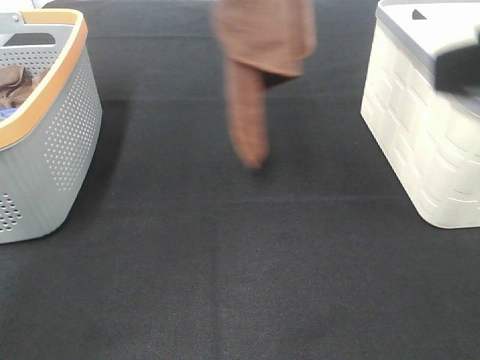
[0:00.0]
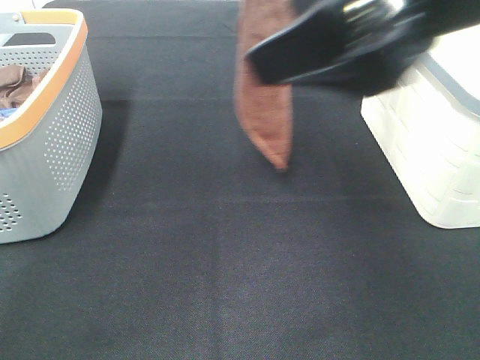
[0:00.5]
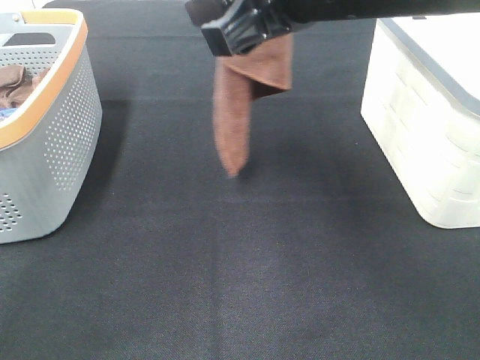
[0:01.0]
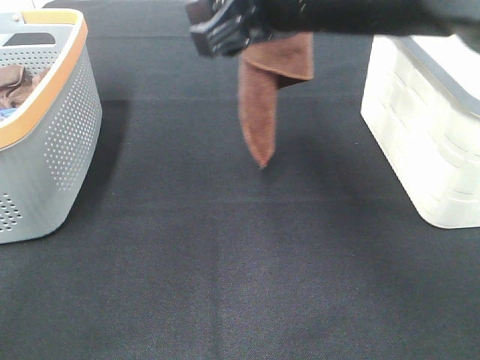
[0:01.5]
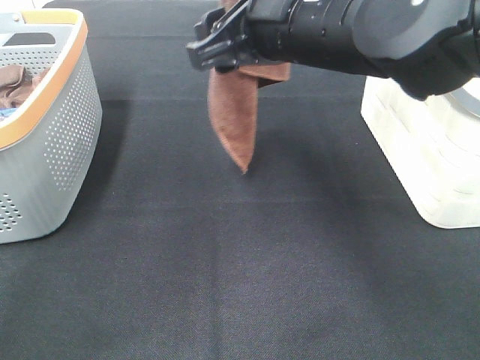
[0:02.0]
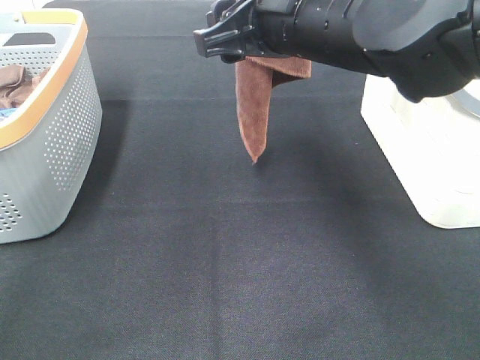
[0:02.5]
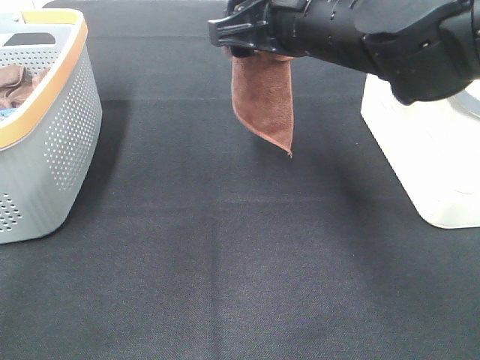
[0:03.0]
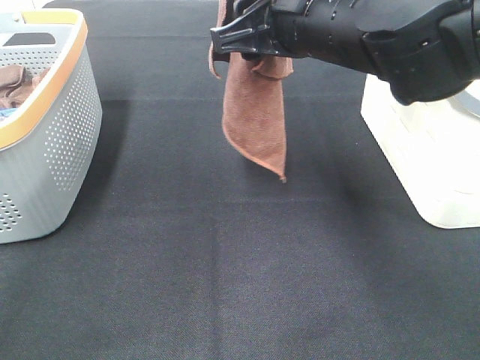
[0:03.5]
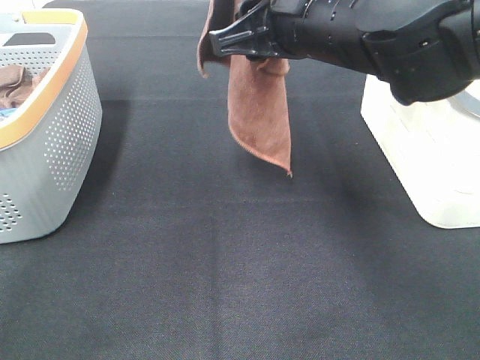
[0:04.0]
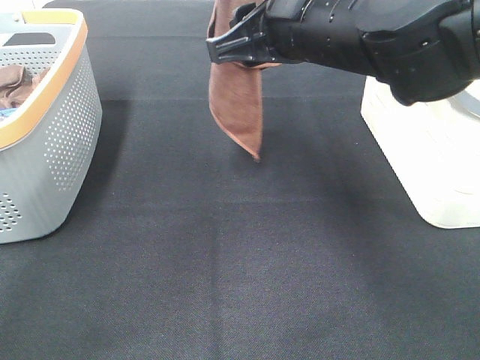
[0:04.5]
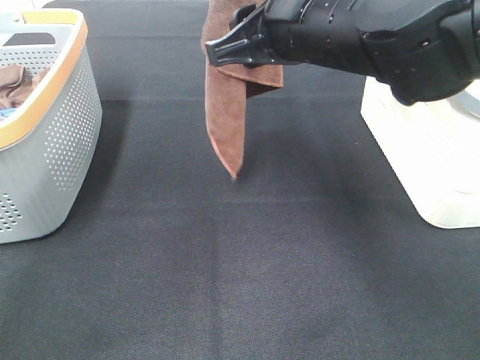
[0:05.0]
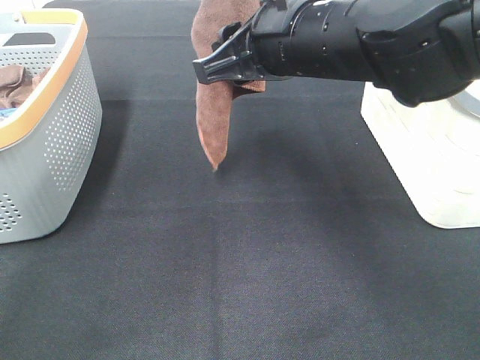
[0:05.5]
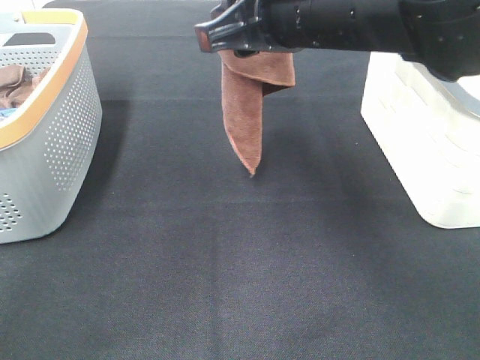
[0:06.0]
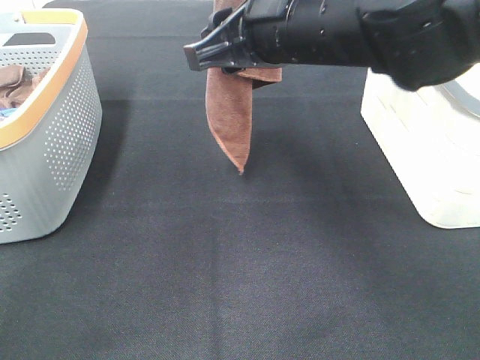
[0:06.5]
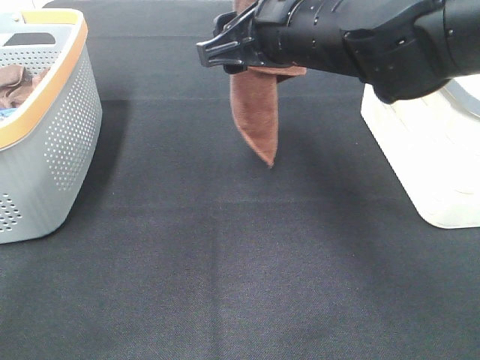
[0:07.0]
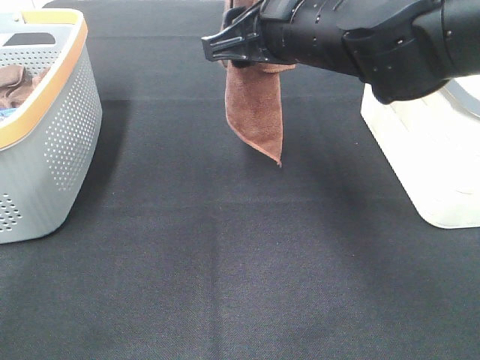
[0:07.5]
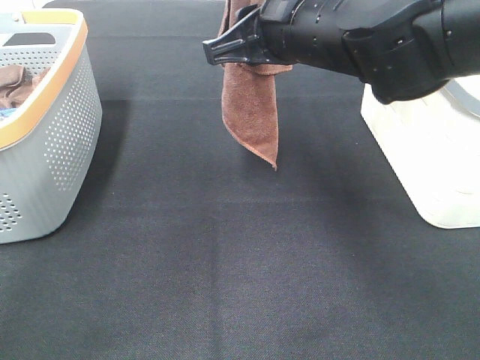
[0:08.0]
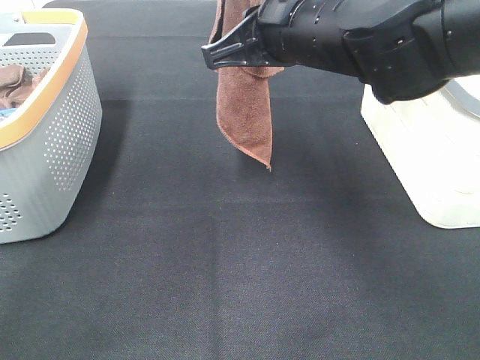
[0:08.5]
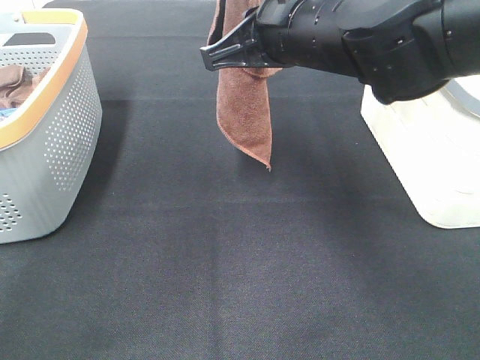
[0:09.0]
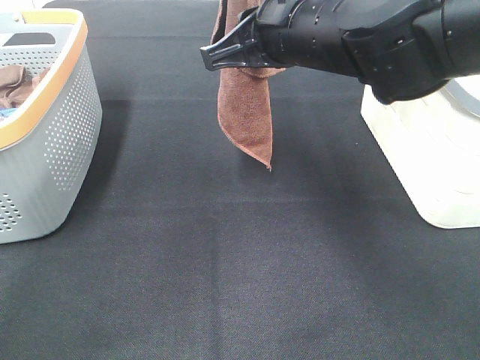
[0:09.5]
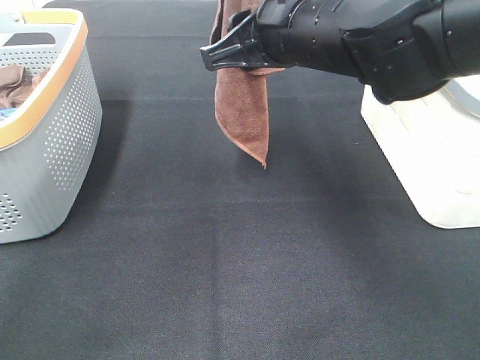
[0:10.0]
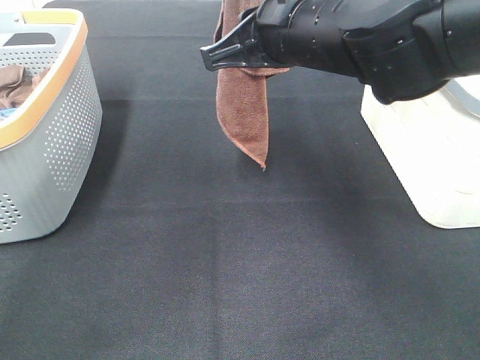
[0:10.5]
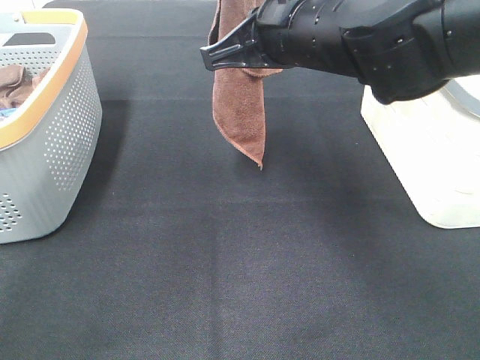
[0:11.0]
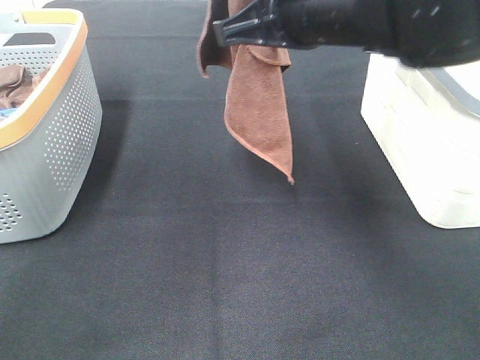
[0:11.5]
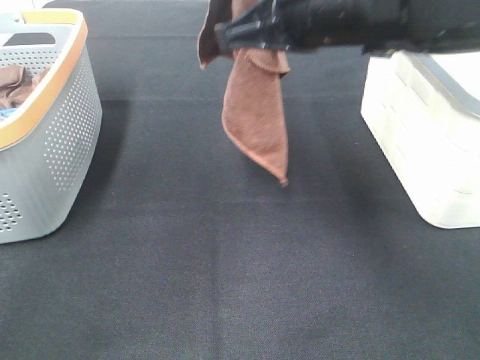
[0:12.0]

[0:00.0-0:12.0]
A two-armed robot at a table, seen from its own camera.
Task of the whole recording: Remove the towel and place it.
0:00.0 to 0:02.0: The right gripper shifts about 25 cm forward, to the left and downward.
0:02.0 to 0:10.0: The grippers move only a little.
0:10.0 to 0:12.0: The right gripper closes.

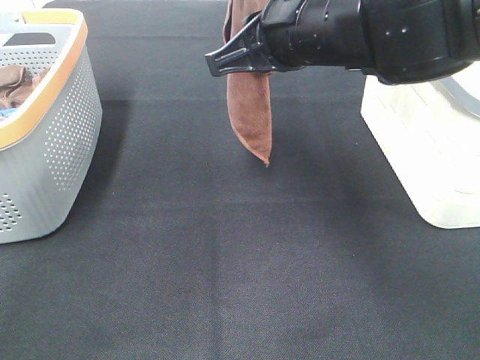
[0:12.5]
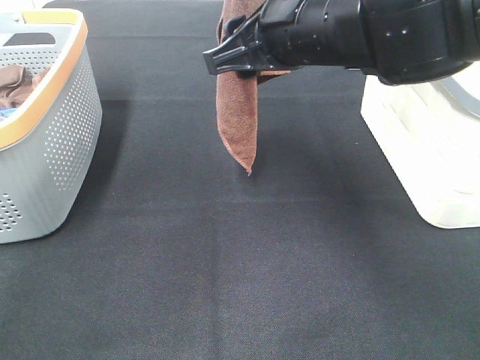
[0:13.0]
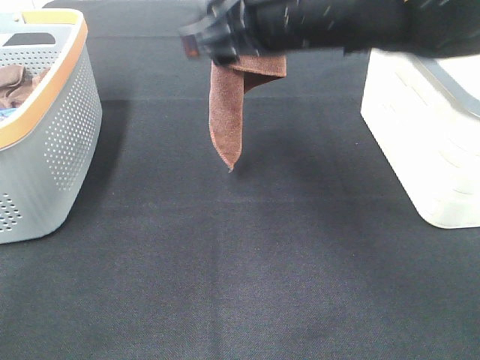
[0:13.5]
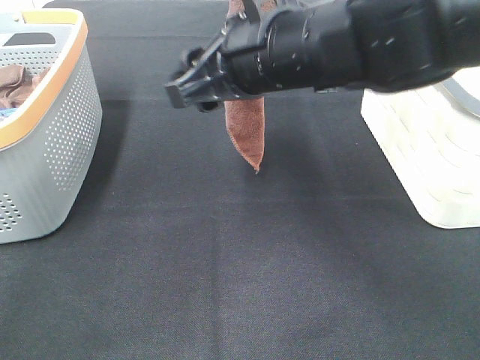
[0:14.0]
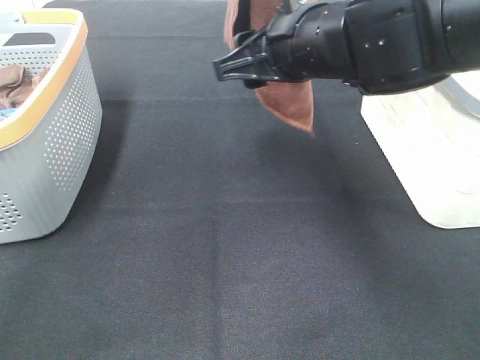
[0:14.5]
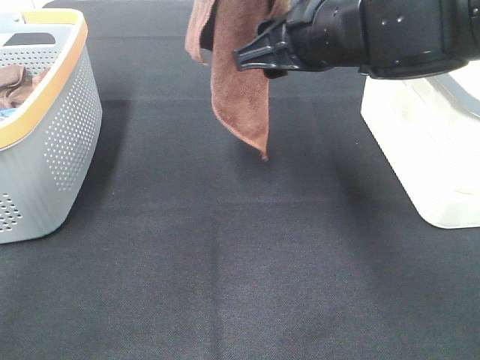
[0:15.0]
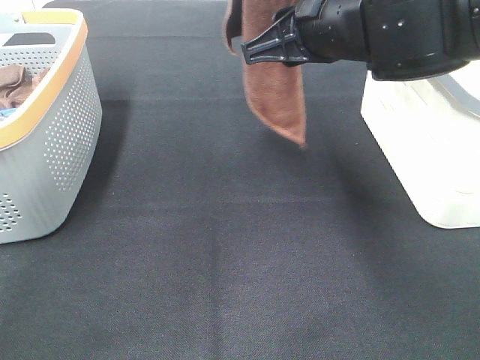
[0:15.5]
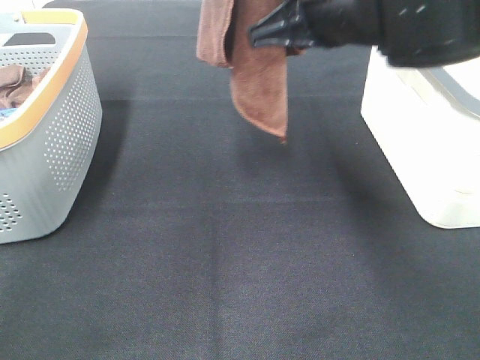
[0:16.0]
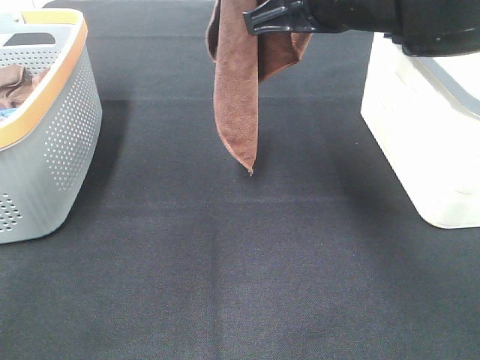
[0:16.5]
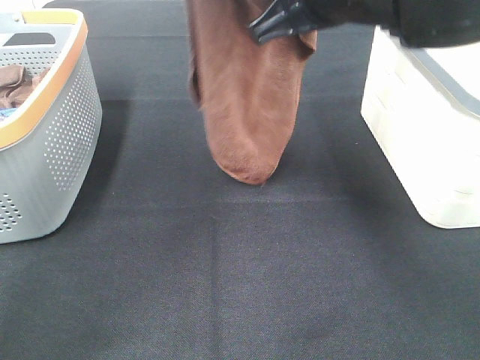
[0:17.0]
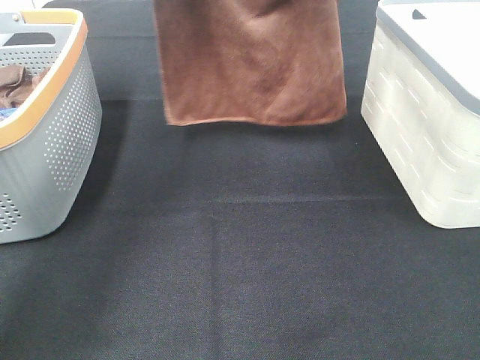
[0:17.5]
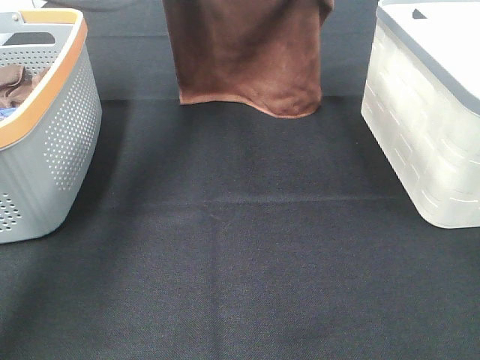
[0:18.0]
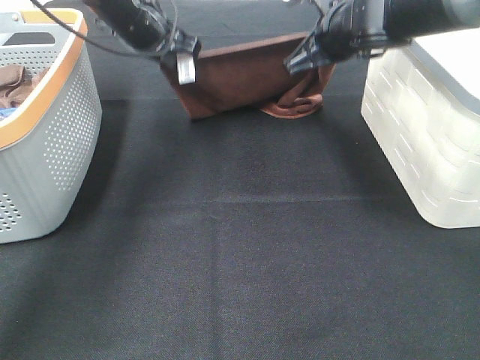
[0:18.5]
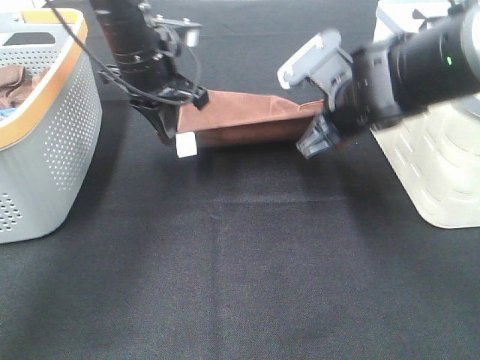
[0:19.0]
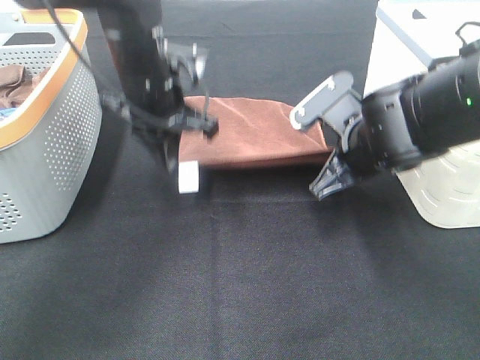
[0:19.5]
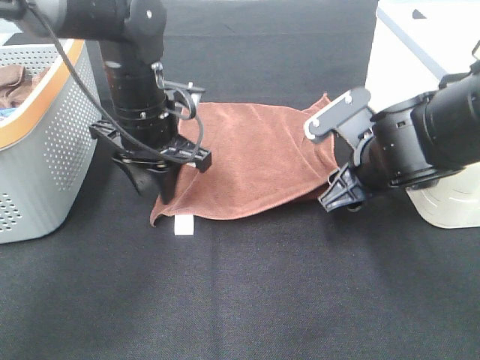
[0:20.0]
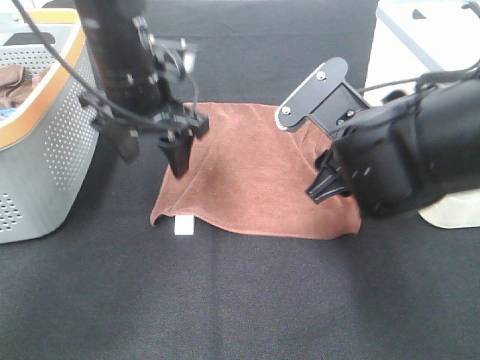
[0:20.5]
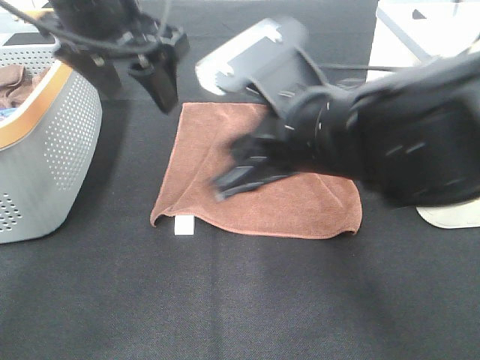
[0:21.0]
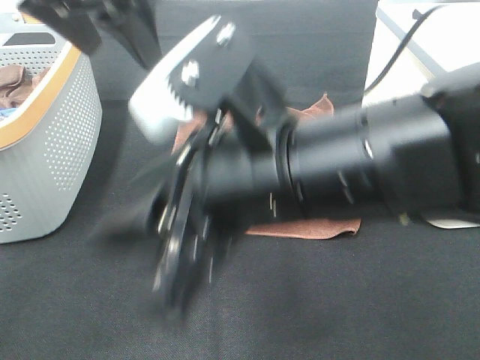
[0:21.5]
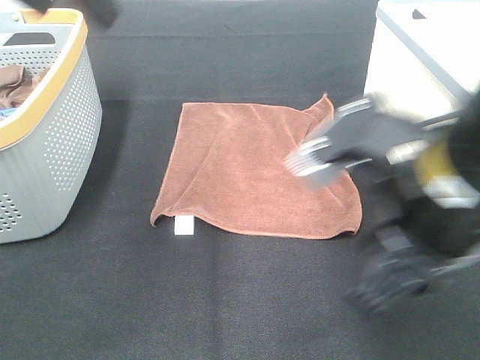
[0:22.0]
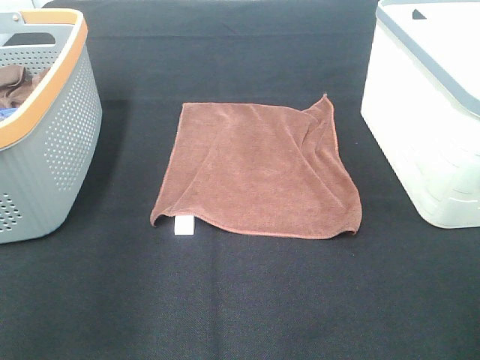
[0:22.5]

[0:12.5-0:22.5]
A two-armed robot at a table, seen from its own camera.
Task of the whole recording: Remove the towel and place it.
Step, 0:12.5 to 0:14.0: Right hand: spread the brown towel flat on the table.
0:12.5 to 0:14.5: The right gripper opens its fingers.
0:14.5 to 0:16.5: The right gripper shifts by some 5 cm, and closes its fingers.
0:16.5 to 0:18.5: The left gripper is displaced downward and forward by some 30 cm. Meanwhile the right gripper shifts approximately 15 cm forward and downward.
0:18.5 to 0:20.5: The two grippers go some 15 cm backward. The left gripper opens up, while the right gripper opens.
0:20.5 to 0:22.5: The left gripper goes roughly 30 cm backward, to the left and upward; the right gripper goes roughly 20 cm backward and to the right.

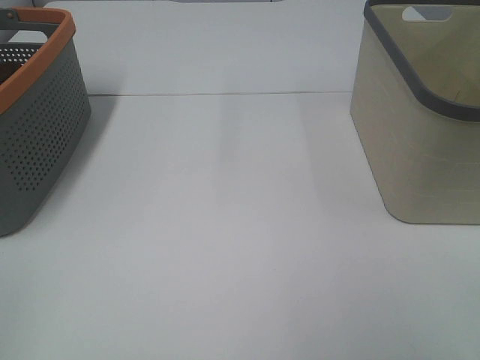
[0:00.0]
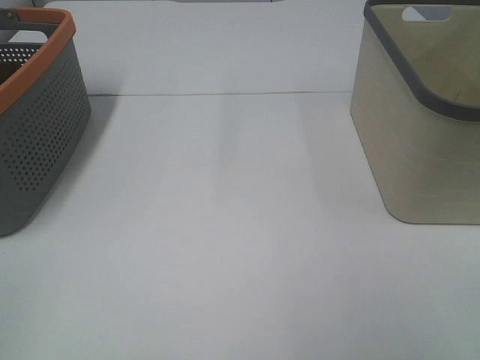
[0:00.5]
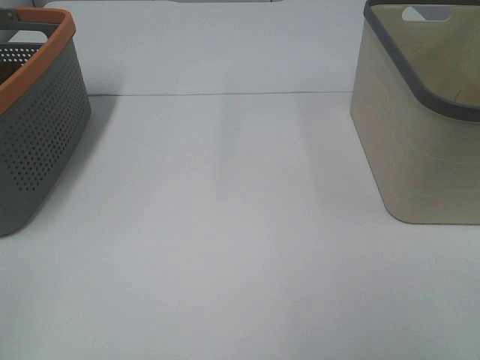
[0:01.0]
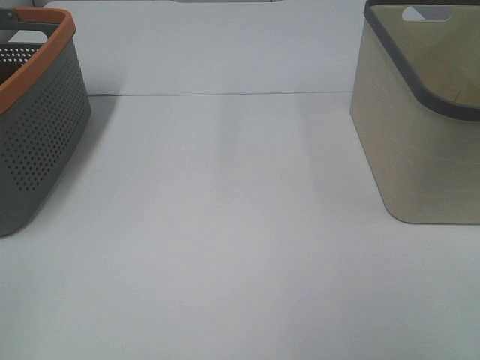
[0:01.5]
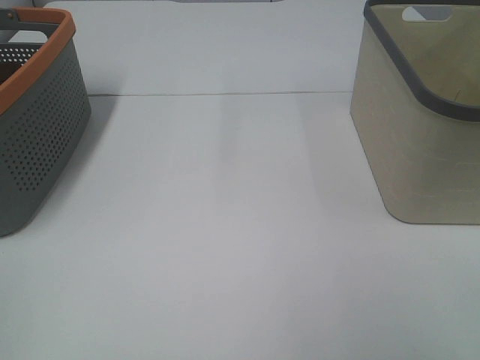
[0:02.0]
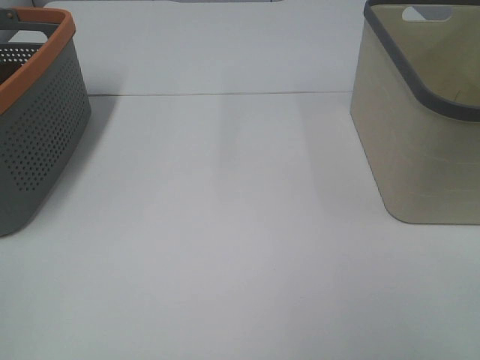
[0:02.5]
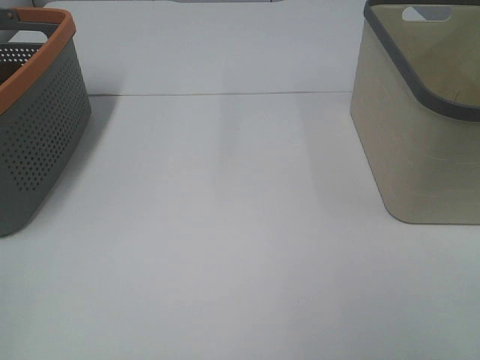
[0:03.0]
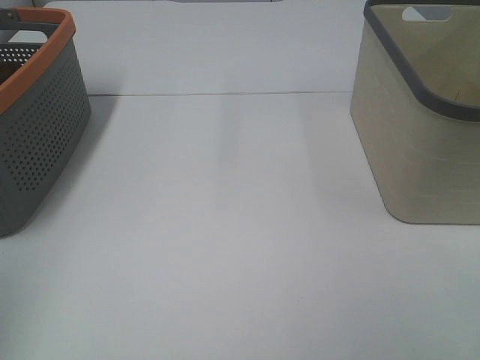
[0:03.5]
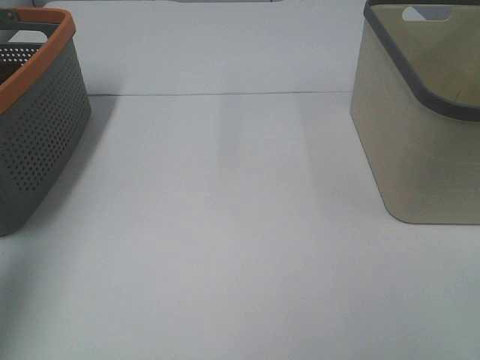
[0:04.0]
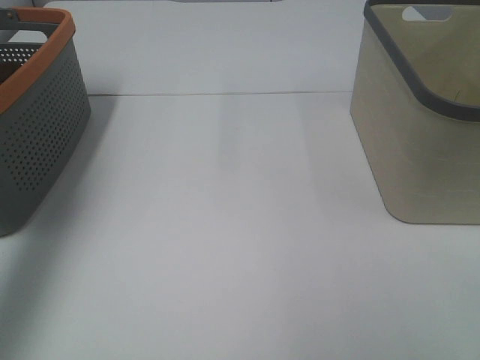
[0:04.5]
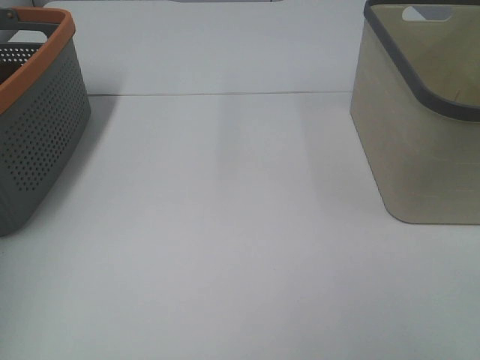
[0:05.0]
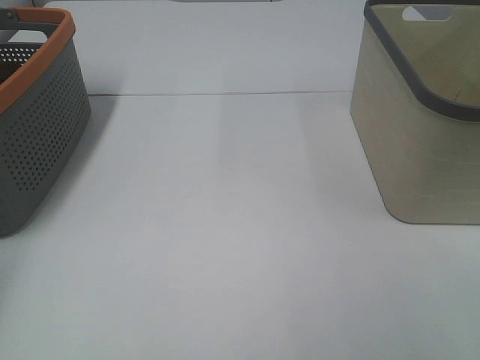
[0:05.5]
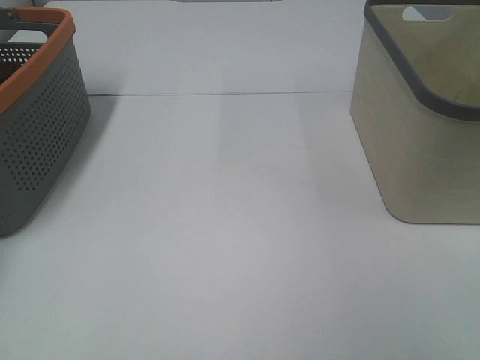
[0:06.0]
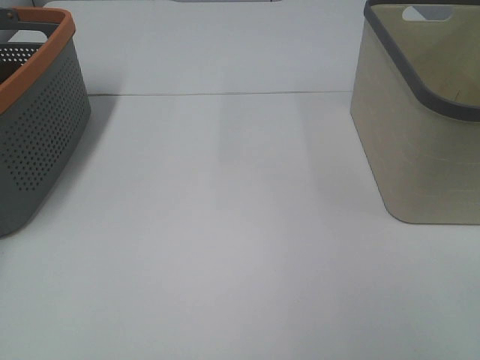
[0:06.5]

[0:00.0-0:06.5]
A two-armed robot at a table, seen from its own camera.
Task of the whole recording: Remove the towel and place it.
0:02.0 to 0:04.5: The left gripper shifts roughly 30 cm forward and upward.
0:04.5 to 0:06.5: The left gripper heads downward, forward and to the left, covering some 30 cm.
